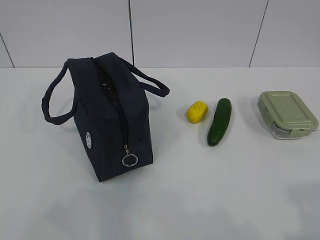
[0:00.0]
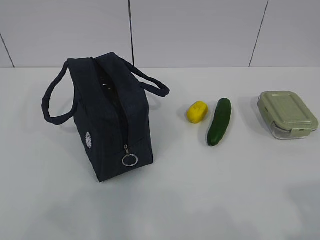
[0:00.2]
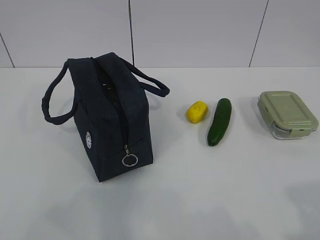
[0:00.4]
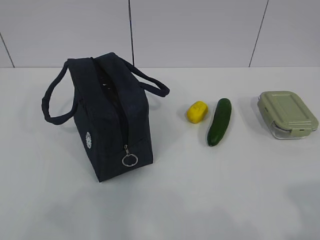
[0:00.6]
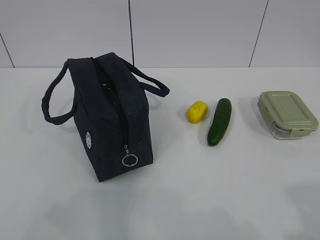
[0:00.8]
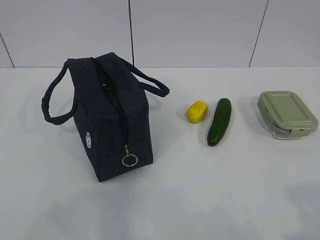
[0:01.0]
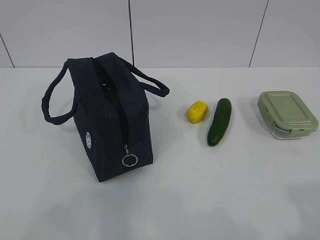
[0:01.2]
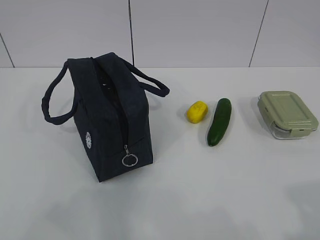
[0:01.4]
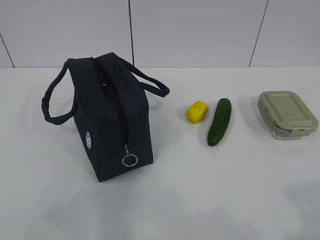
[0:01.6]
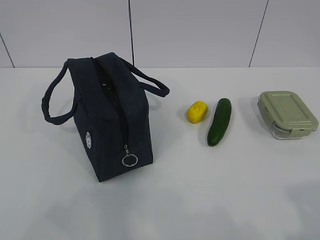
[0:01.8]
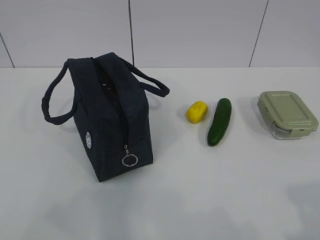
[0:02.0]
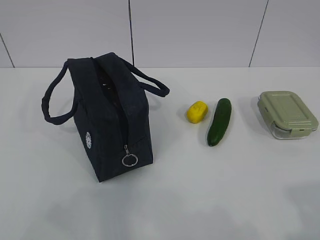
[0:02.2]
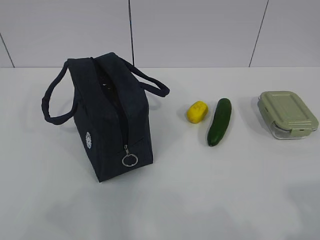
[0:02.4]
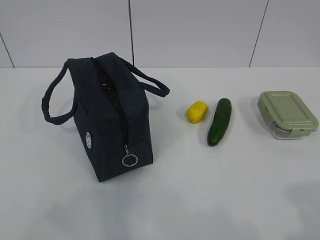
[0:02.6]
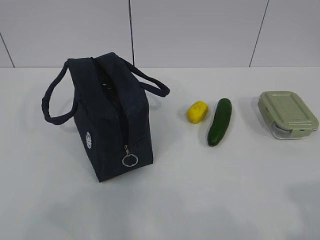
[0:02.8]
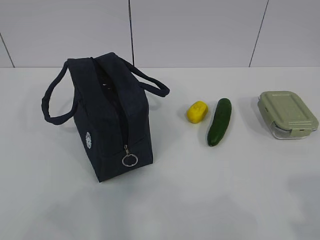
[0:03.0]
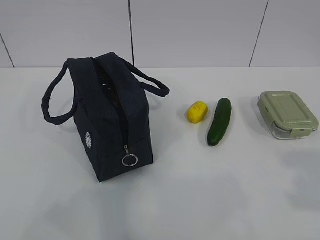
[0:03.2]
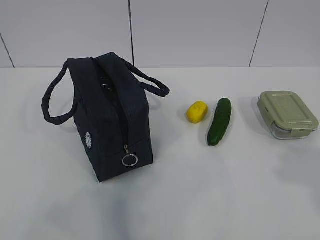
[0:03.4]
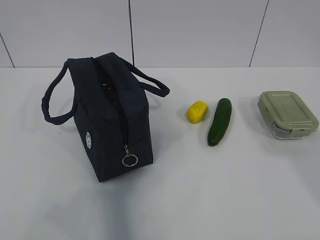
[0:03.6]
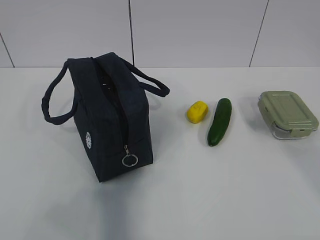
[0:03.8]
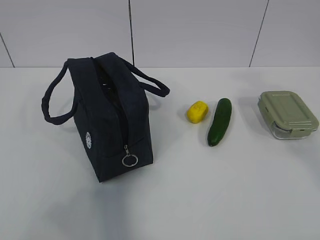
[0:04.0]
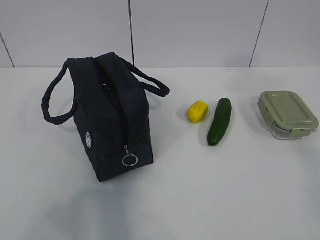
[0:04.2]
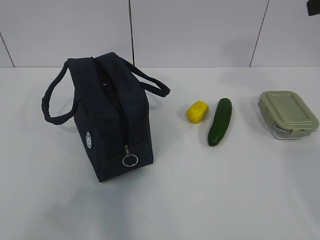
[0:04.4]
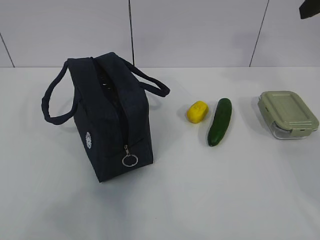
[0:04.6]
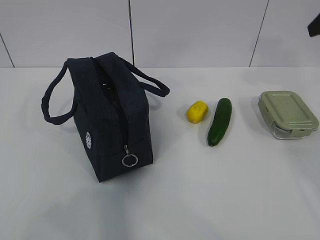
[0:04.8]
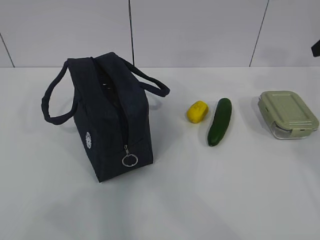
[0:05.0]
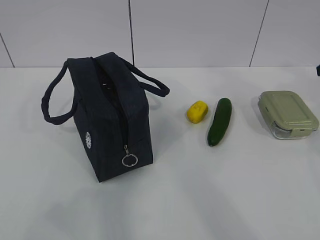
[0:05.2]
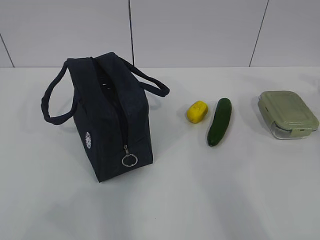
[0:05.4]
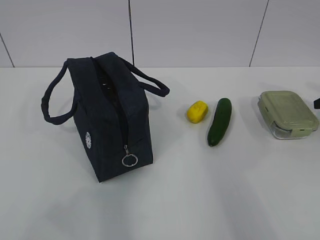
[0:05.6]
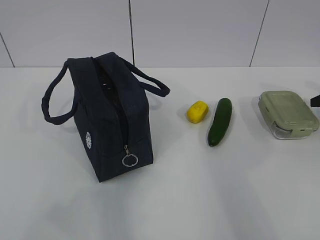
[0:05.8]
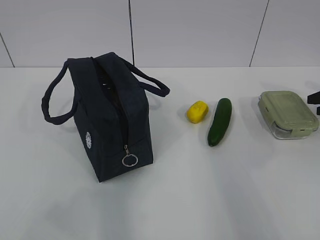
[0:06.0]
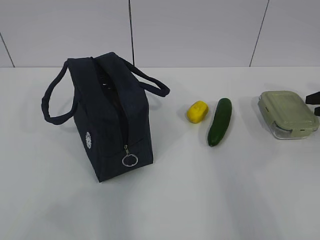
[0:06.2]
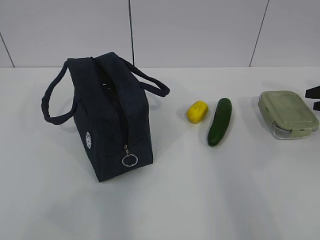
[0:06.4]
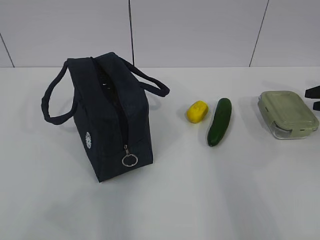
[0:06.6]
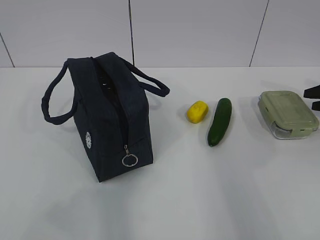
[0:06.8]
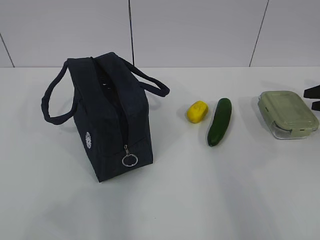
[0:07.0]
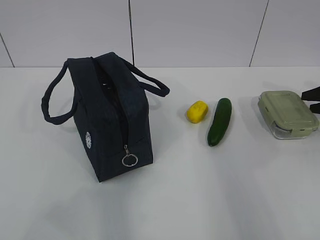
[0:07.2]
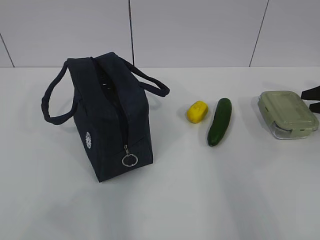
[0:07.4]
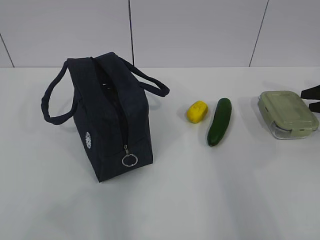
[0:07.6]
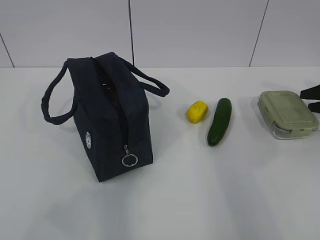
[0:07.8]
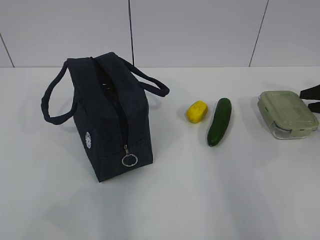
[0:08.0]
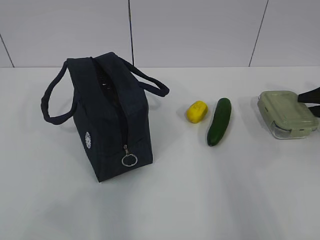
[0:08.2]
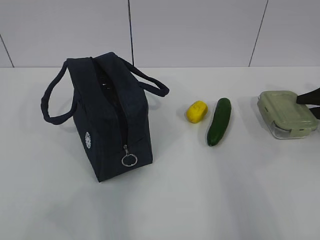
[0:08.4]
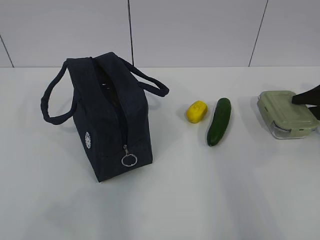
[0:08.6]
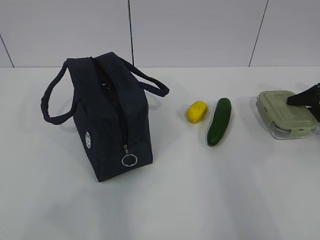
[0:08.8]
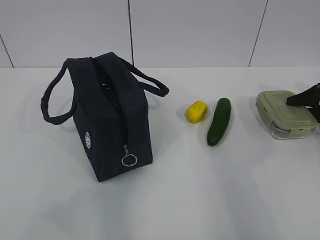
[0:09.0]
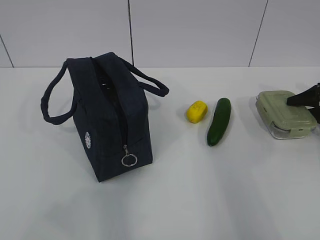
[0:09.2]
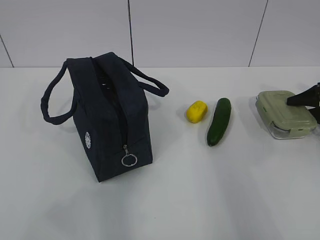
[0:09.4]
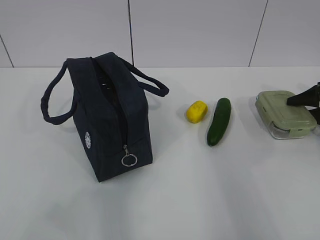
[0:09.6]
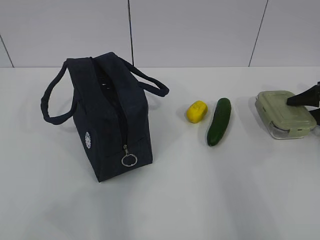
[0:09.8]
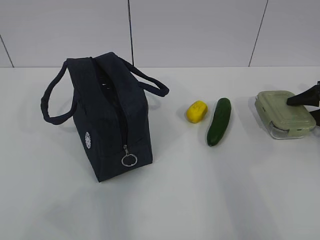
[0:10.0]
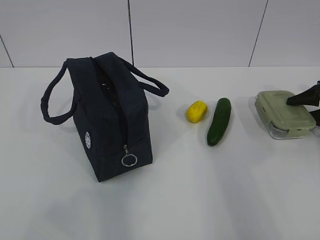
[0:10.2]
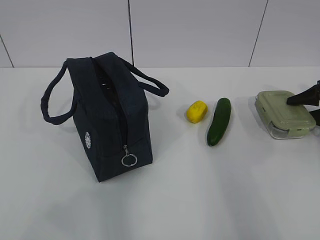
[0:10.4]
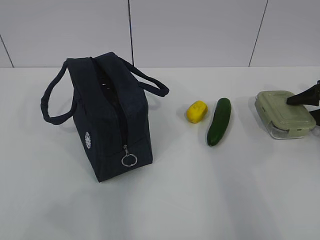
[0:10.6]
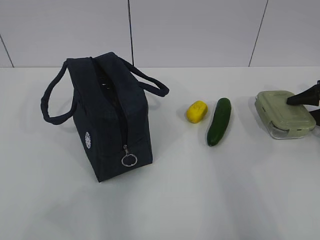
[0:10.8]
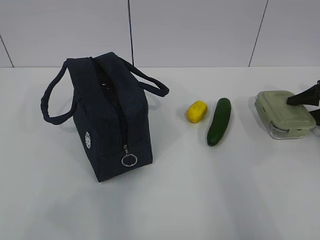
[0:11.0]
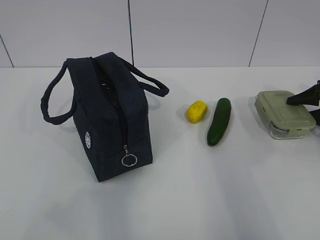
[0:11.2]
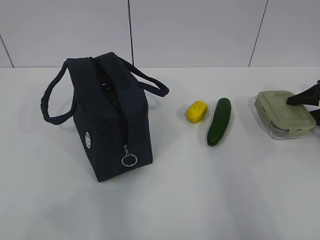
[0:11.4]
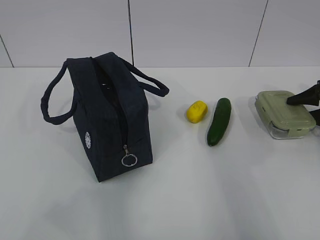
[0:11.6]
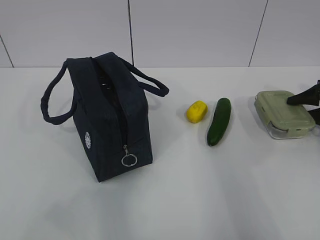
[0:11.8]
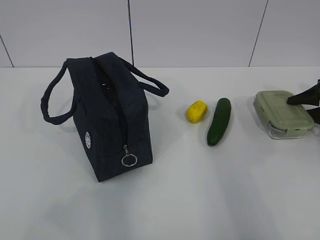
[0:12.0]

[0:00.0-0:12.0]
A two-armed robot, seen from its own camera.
0:04.4 to 0:06.0: The right gripper shifts some 35 cm downward, to the right and forward.
0:07.6 to 0:09.0: The grippers stay close to where they were, moving slightly.
0:10.4 to 0:12.0: Neither gripper changes place.

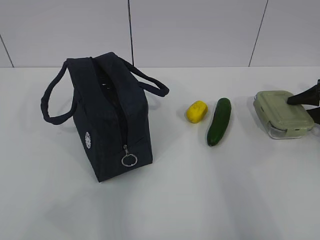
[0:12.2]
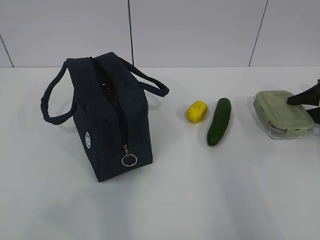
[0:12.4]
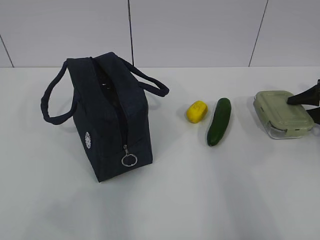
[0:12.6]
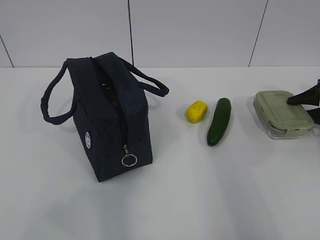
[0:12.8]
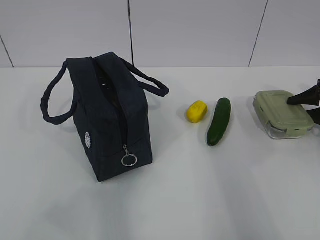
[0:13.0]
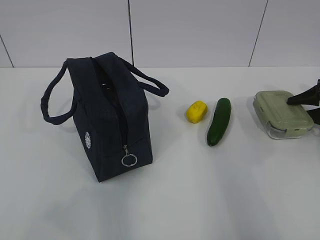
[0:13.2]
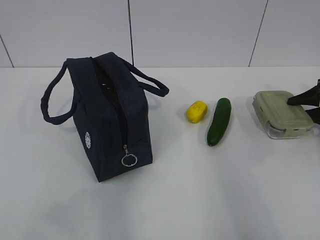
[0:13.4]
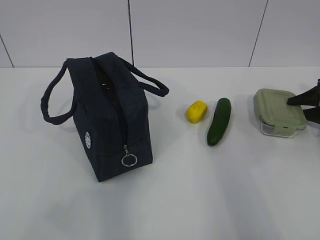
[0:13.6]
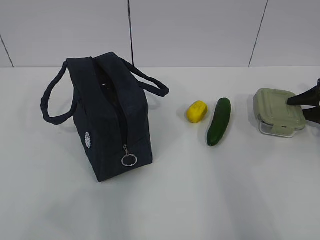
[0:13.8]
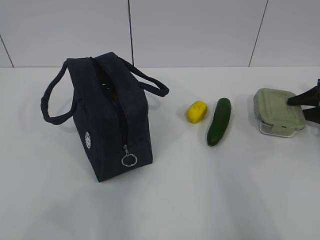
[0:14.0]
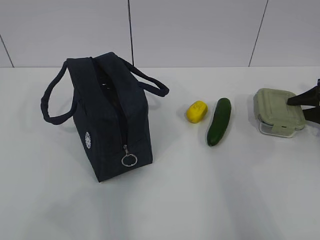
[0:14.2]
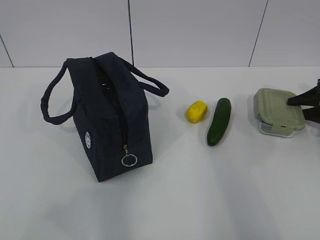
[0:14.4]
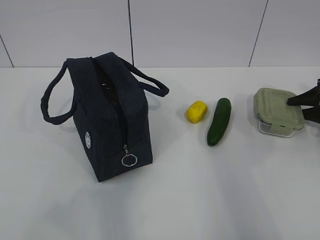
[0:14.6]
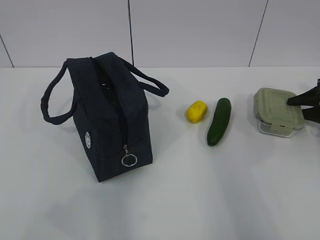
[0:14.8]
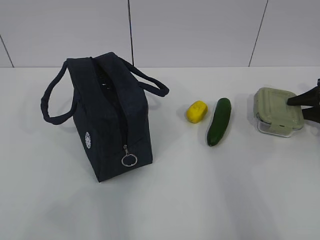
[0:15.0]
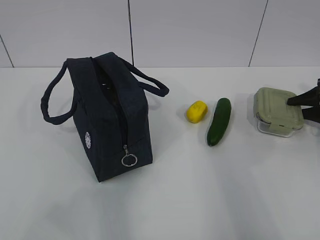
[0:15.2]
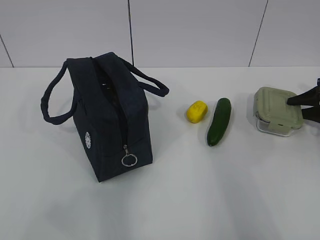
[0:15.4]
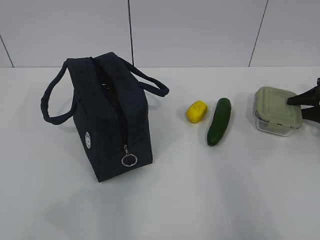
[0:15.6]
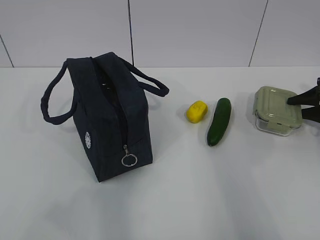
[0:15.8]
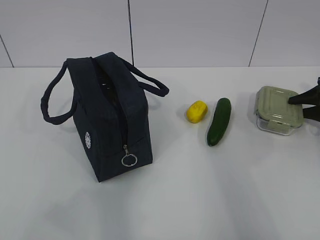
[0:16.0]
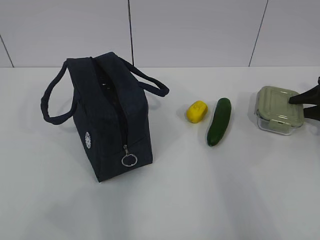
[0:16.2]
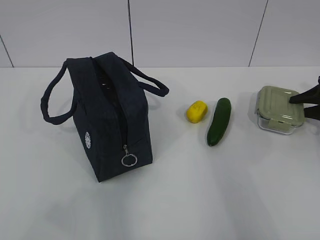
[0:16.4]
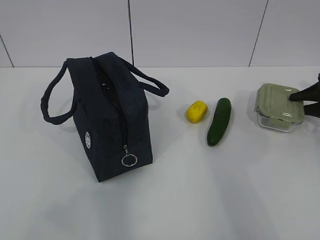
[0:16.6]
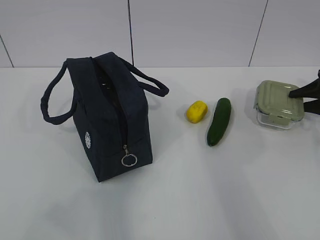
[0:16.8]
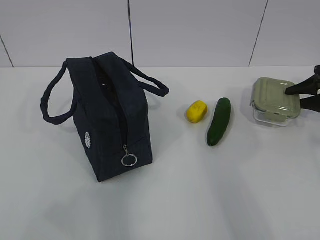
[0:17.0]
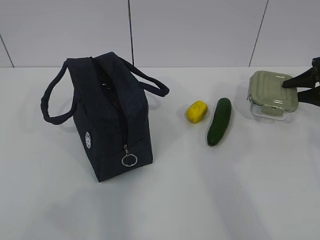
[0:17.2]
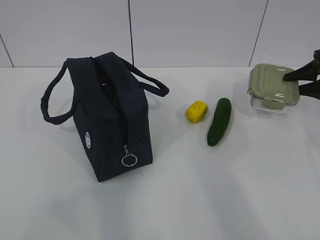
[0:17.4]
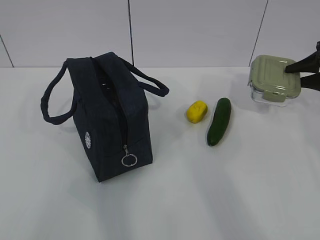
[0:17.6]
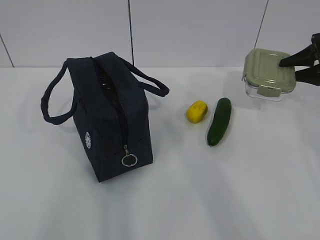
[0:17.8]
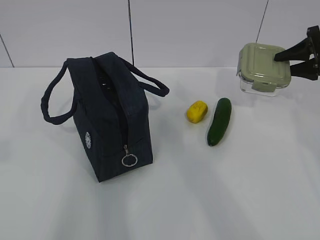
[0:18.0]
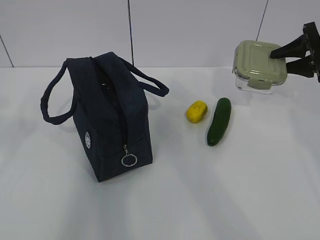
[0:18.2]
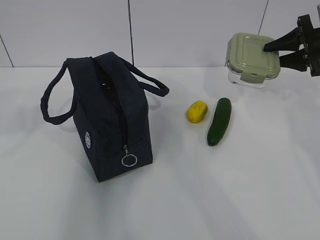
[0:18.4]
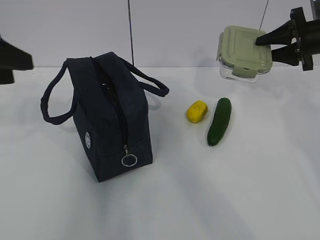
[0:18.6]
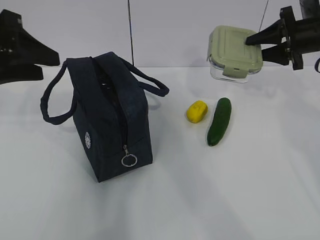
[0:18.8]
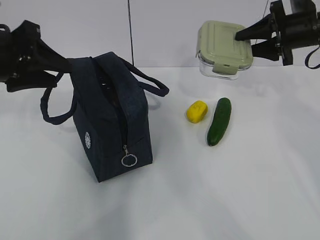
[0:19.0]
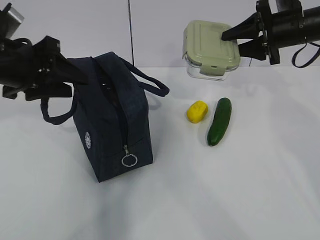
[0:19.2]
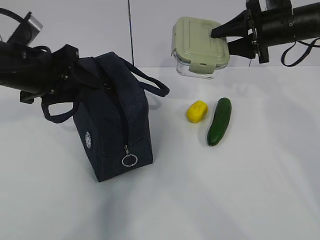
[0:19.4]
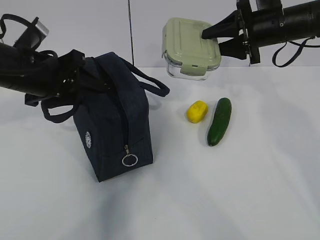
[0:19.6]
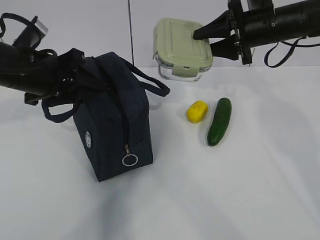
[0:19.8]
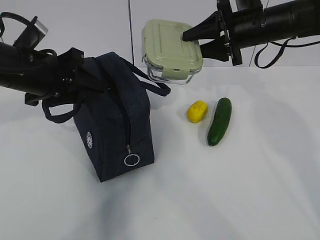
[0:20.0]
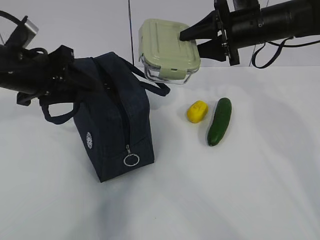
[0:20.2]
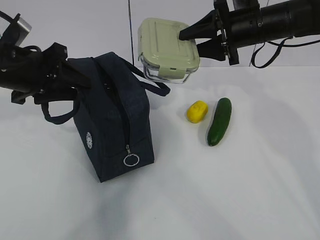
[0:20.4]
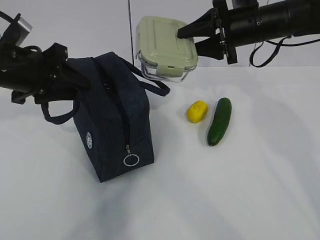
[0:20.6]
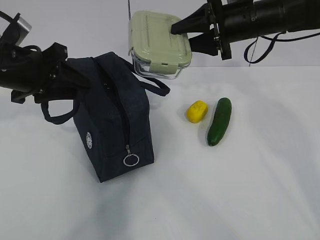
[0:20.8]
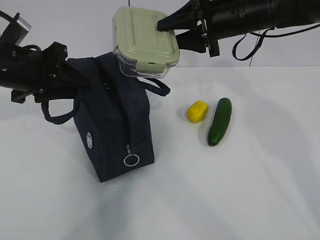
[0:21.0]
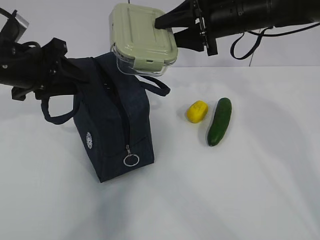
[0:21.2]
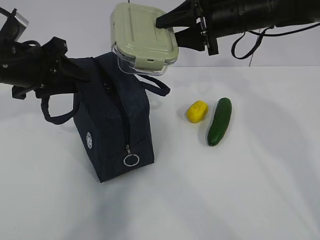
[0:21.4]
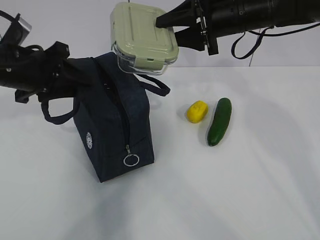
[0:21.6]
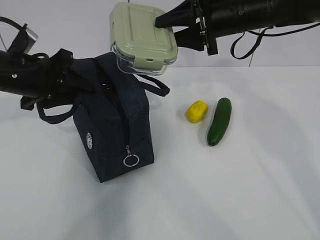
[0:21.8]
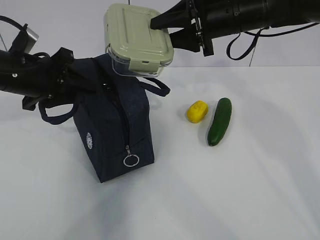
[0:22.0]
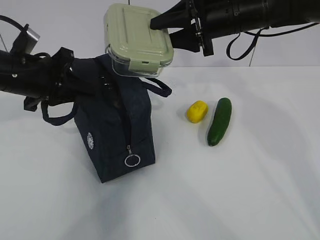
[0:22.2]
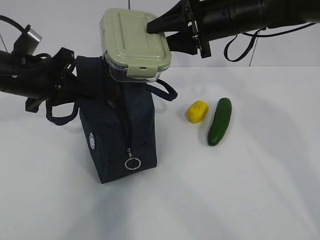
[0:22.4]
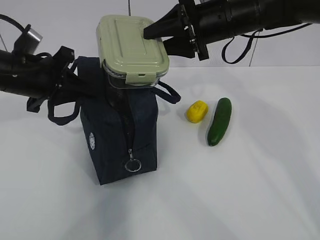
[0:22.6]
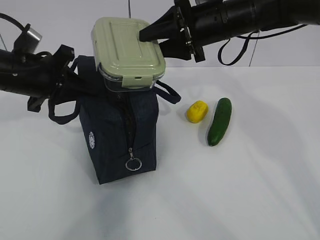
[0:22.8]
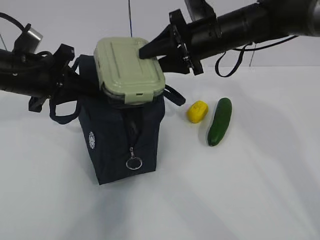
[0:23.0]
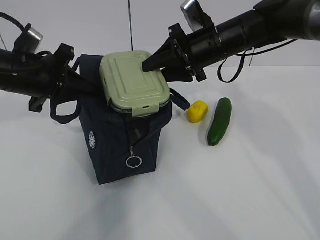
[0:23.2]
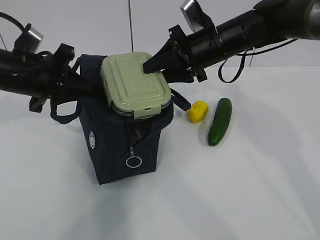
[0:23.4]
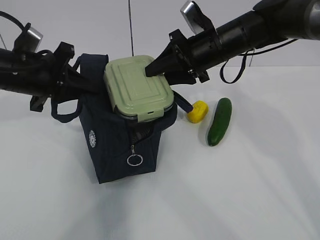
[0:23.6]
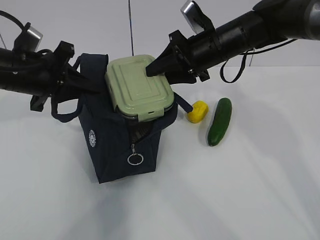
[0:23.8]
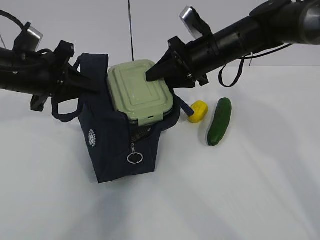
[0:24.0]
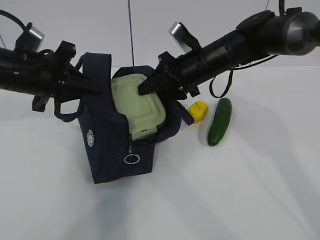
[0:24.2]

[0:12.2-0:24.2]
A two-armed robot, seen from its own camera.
Step, 0:13.6 to 0:19.0: Grab the lunch bag with your left hand.
Step, 0:19.2 to 0:22.0: Place it into the bag with your right hand.
0:12.2 to 0:15.2: Both grippers stay about where they are.
0:15.2 to 0:16.6: The grippers make only small movements.
0:16.6 to 0:18.2: The right gripper is displaced upward and to the left by some 15 cm.
0:18.2 to 0:19.8: The left gripper moves forward, downward and to the right, roughly 25 cm. Meanwhile the right gripper moves to the left, some 15 cm.
0:19.8 to 0:21.2: The right gripper is displaced to the left by approximately 5 cm.
0:21.2 to 0:22.6: The left gripper closes up.
0:22.6 to 0:24.2: The right gripper goes some 10 cm downward.
